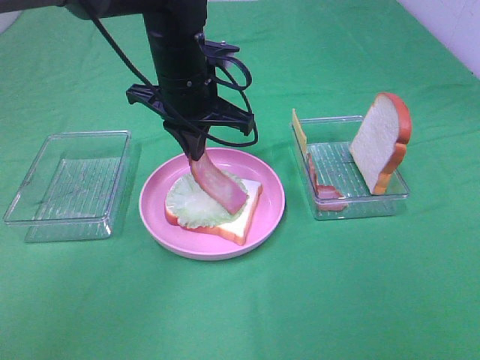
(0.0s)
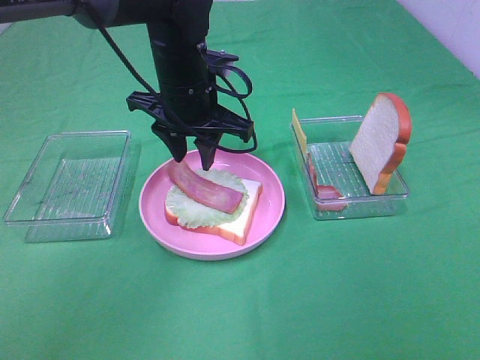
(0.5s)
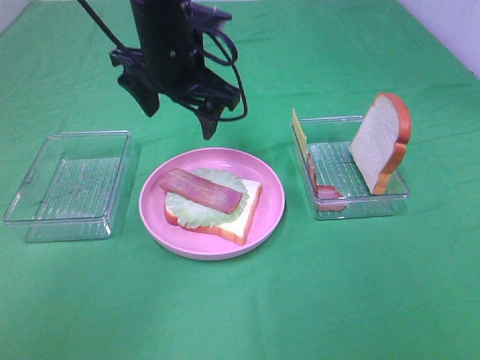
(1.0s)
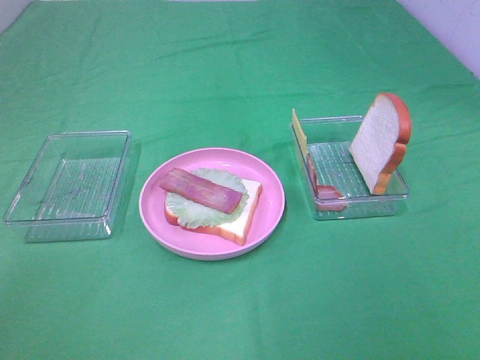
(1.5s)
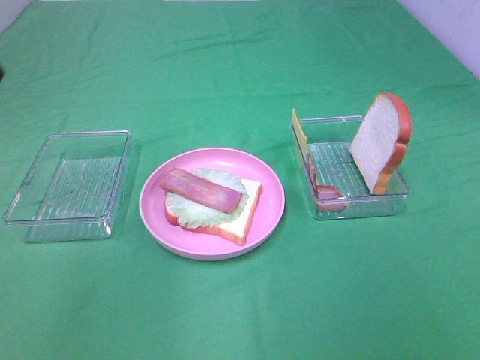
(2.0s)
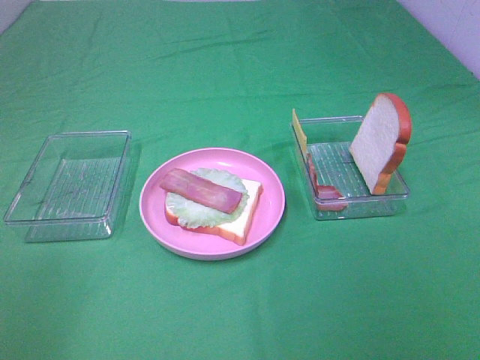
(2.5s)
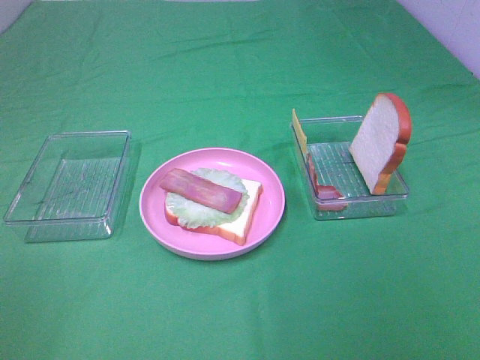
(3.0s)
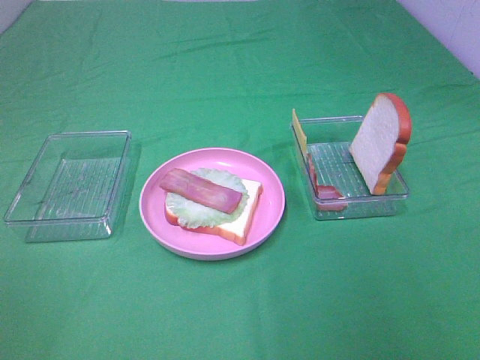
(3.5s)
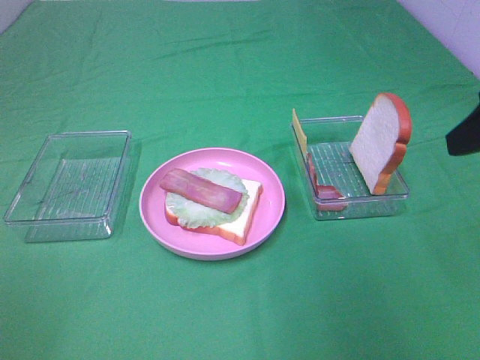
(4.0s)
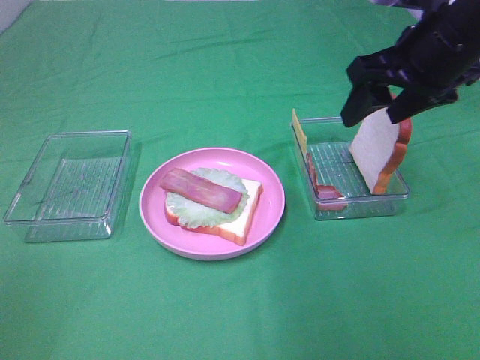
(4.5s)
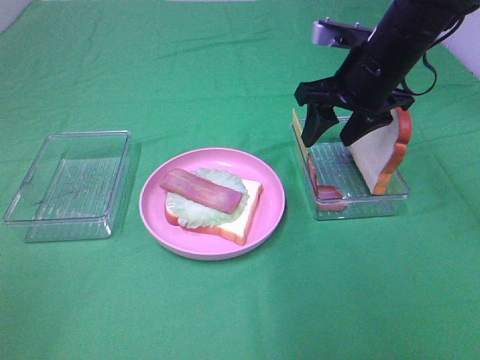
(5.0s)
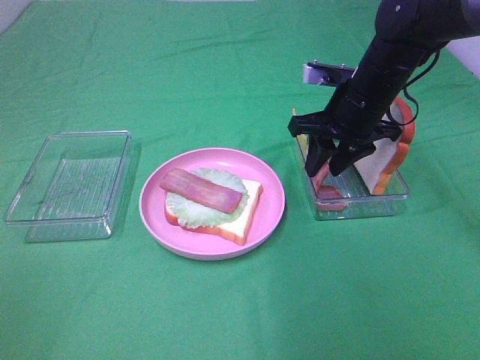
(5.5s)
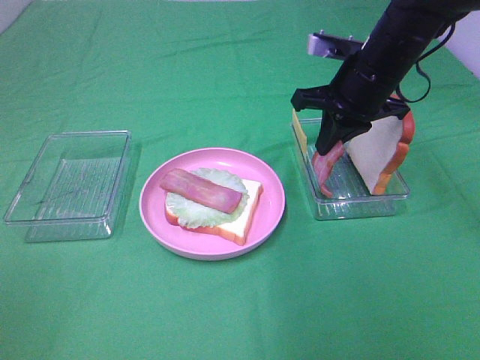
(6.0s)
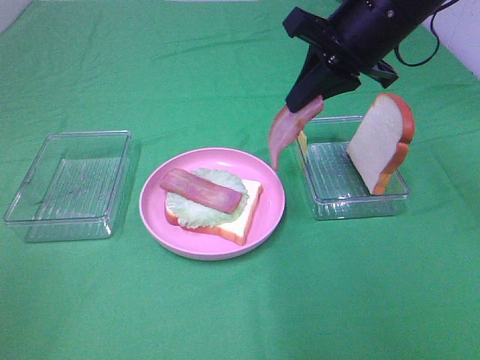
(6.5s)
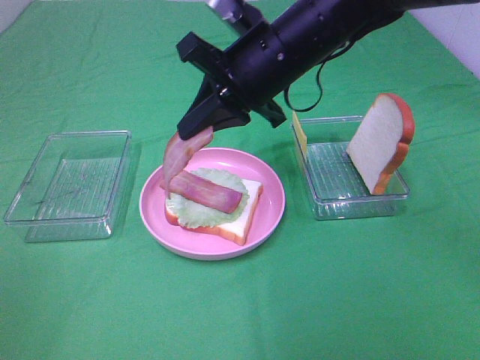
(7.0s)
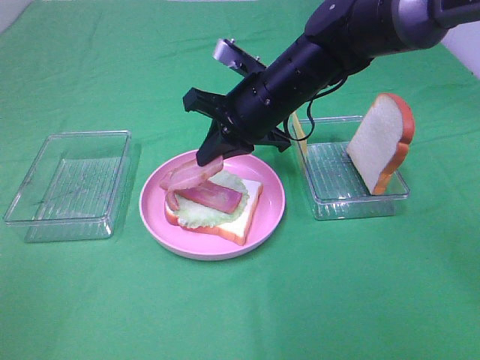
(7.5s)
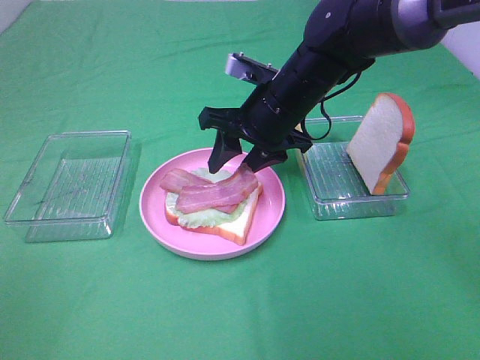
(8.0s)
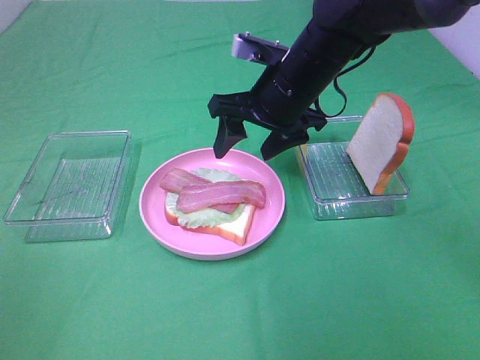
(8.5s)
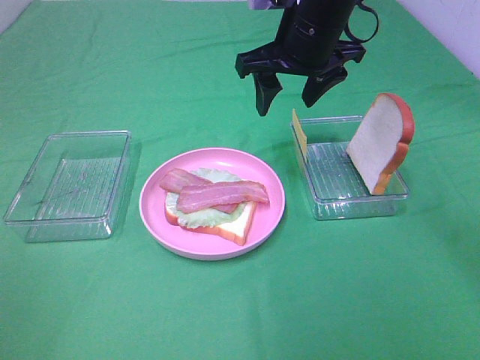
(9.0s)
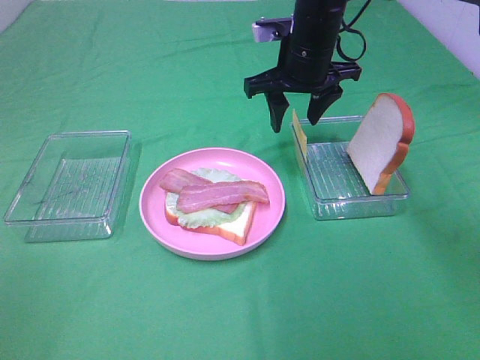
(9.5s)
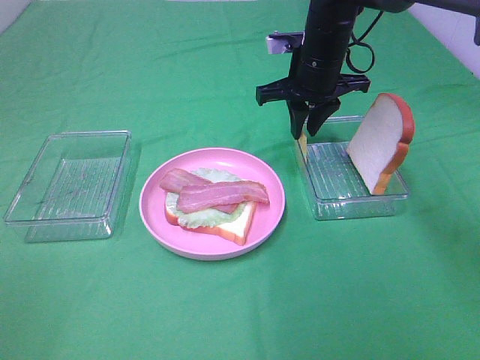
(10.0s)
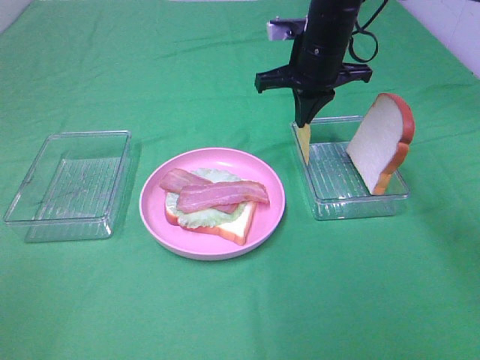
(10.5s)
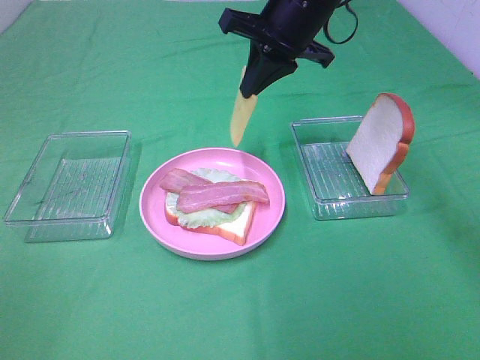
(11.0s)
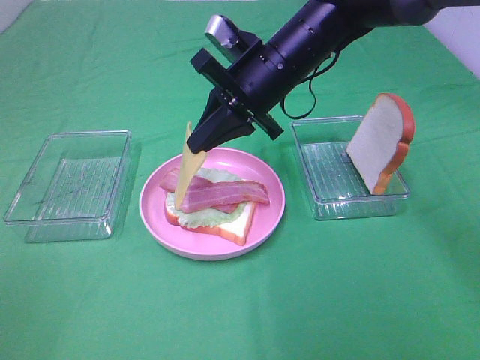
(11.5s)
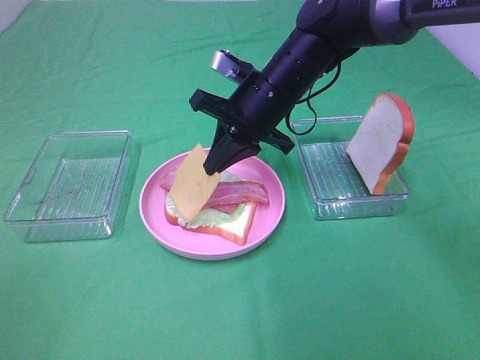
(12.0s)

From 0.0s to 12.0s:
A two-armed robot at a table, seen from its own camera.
Task of the whole recording: Make sandwiches.
Step, from 1.0s to 5.5s: Right hand:grab the bacon.
Step, from 6.0s to 8.5s: Right hand:place bacon on bacon.
Step, from 9.0s to 10.0s: Right hand:grab the cheese slice.
From 0.0s to 2.0s: The left gripper is displaced backward, upward and to the left by roughly 35 cm, and opens its fingers.
From 2.0s to 4.0s: The right gripper shifts some 20 cm forward.
From 4.0s to 6.0s: The right gripper shifts roughly 20 cm forward, to the left and downward, and closes up.
From 6.0s to 8.0s: The right gripper moves to the left, some 10 cm, and opens.
From 8.0s to 10.0s: The right gripper goes roughly 10 cm forward, moves about 10 cm upward and comes back, and closes its fingers.
From 10.0s to 12.0s: The right gripper is displaced backward and to the left by about 10 cm, and travels upward and back again, roughly 5 cm each way.

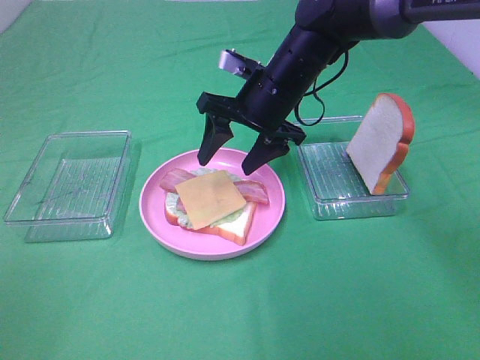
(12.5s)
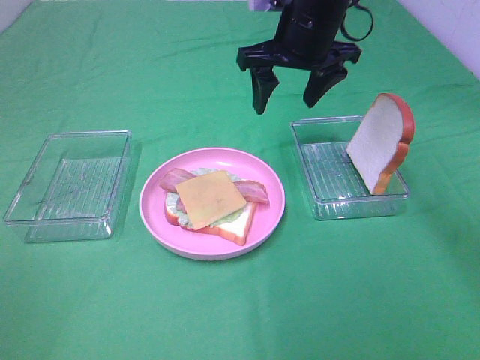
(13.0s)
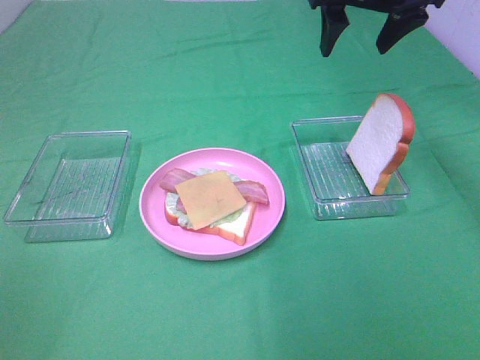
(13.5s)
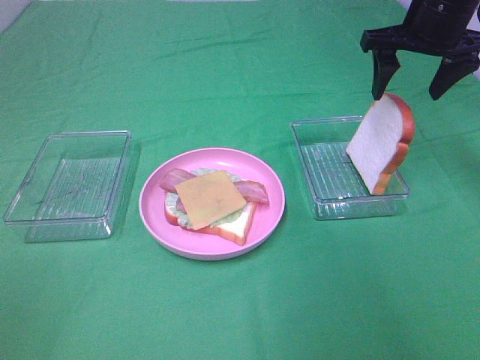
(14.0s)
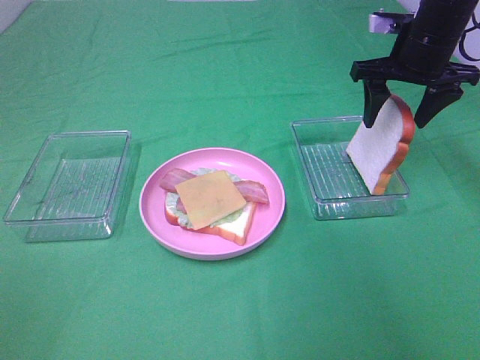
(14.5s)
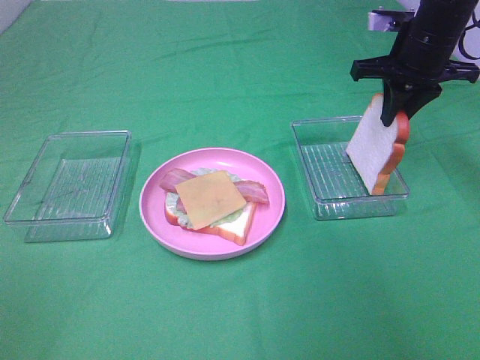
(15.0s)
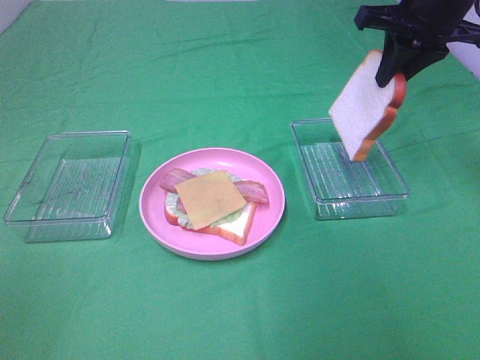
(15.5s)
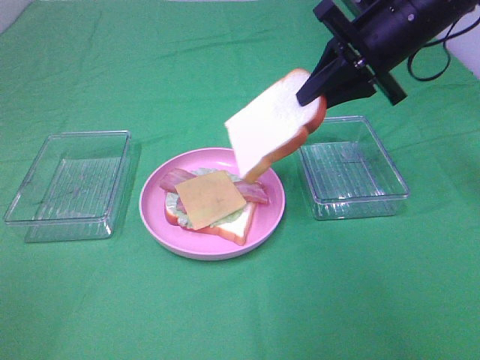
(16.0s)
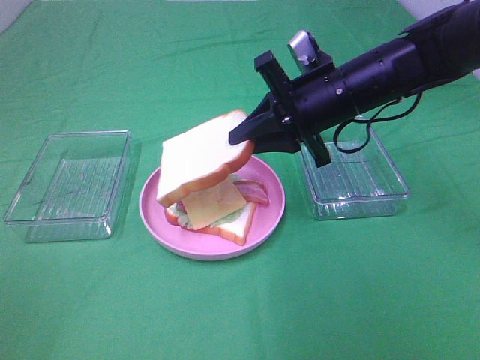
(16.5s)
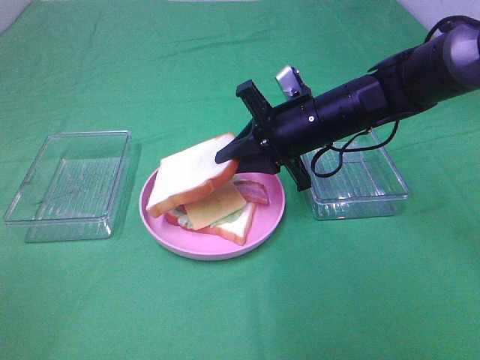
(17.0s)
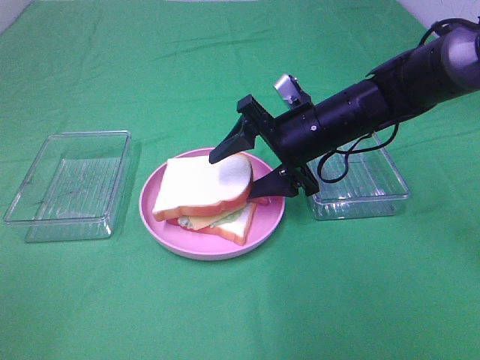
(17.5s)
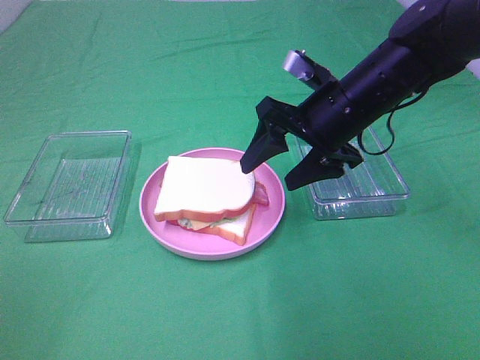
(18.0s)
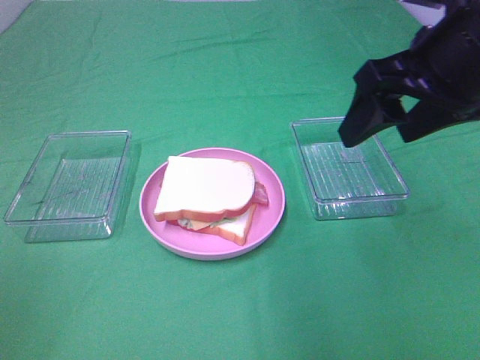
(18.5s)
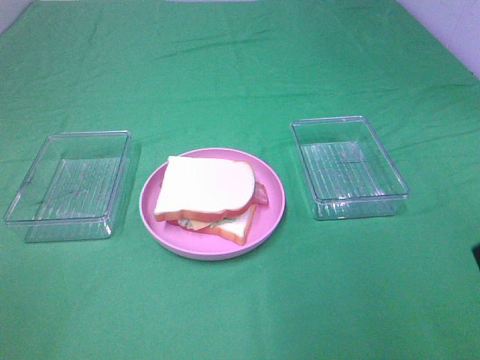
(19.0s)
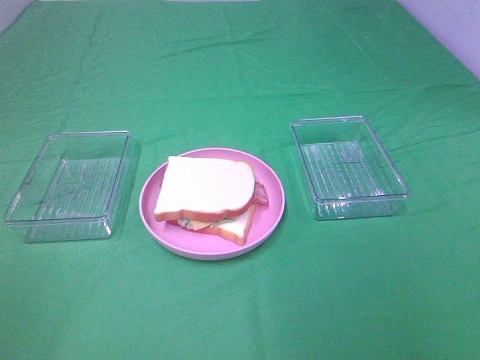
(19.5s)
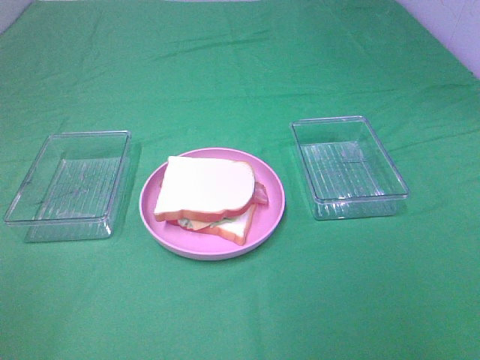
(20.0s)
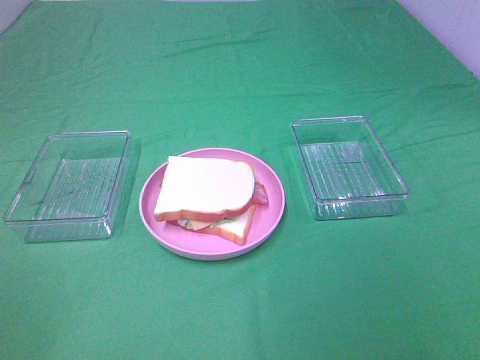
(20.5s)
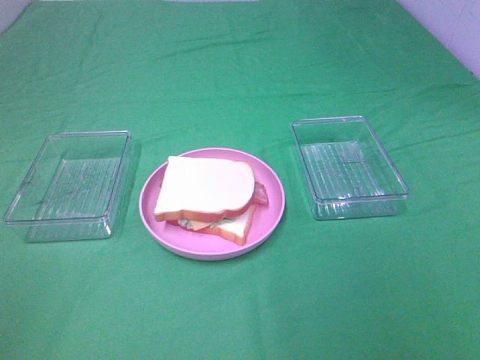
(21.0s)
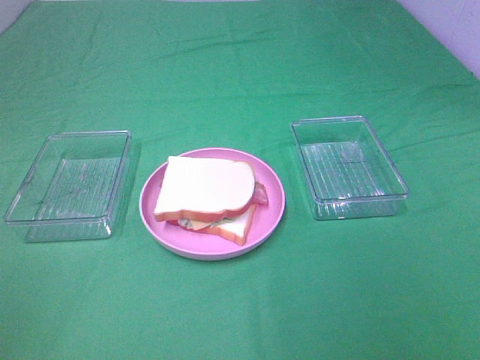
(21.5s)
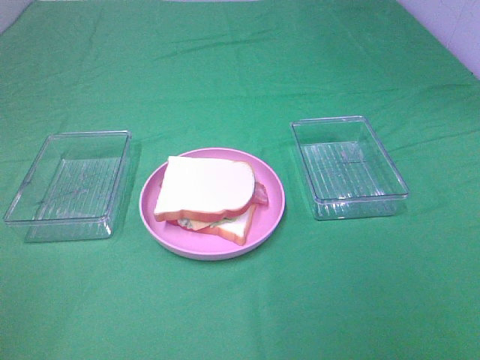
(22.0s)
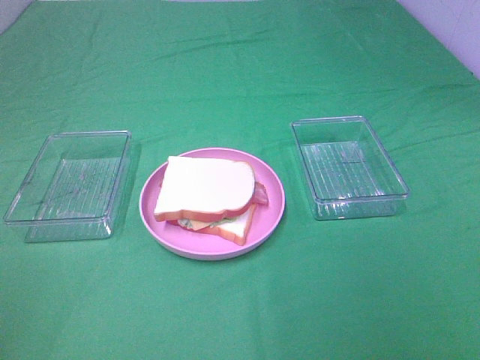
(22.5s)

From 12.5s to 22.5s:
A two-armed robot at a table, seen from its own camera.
Task of the whole recording: Make sandwiches.
Step, from 12.5s to 15.0s: Right hand:grab the bread slice.
Step, from 15.5s to 17.5s: Right hand:place the bread slice on the cheese slice.
From 12.5s to 14.5s: The right gripper heads to the right, covering some 20 cm.
From 14.5s to 16.5s: The right gripper shifts about 15 cm to the left and backward, and closes its fingers.
From 16.5s to 18.5s: The right gripper is displaced upward, backward and to the right by approximately 15 cm, and opens its fingers.
From 18.5s to 20.5s: The right gripper is displaced backward by roughly 25 cm.

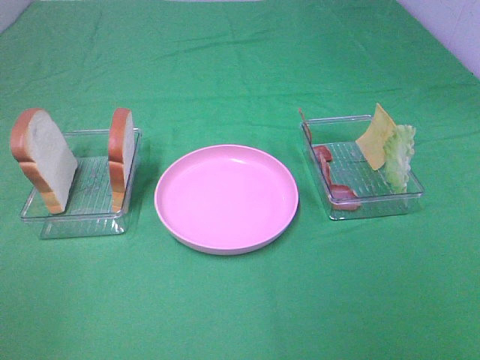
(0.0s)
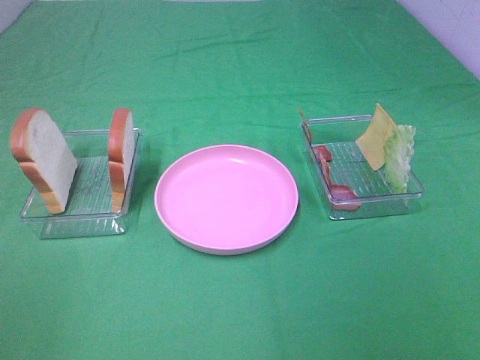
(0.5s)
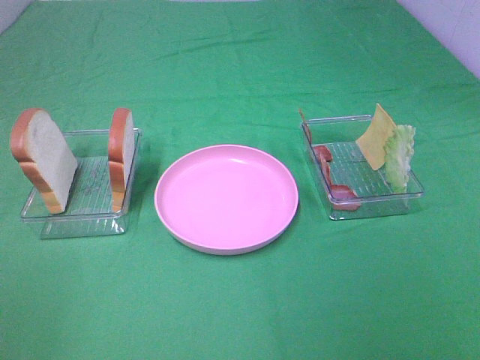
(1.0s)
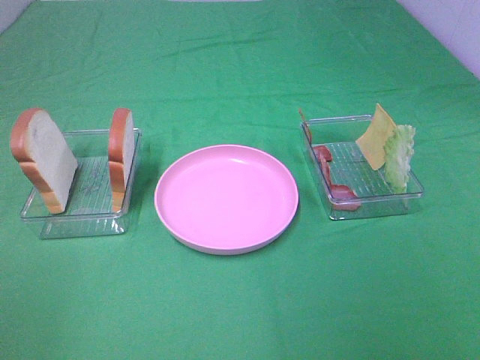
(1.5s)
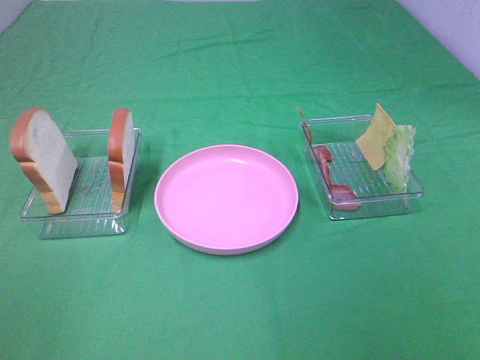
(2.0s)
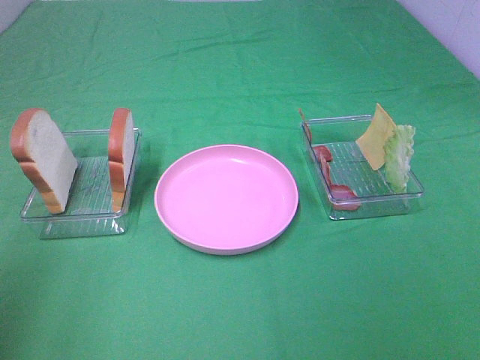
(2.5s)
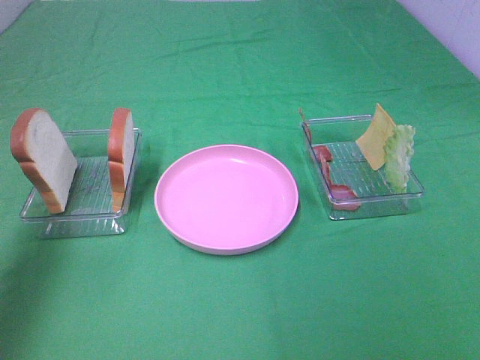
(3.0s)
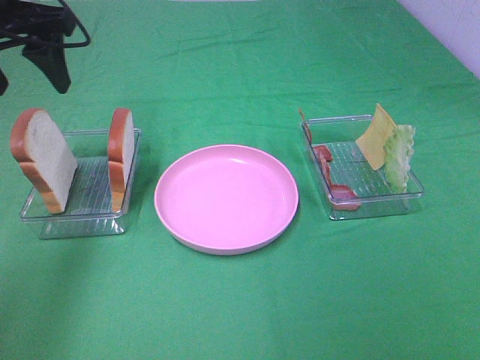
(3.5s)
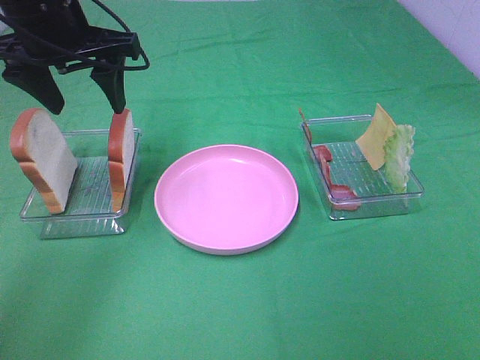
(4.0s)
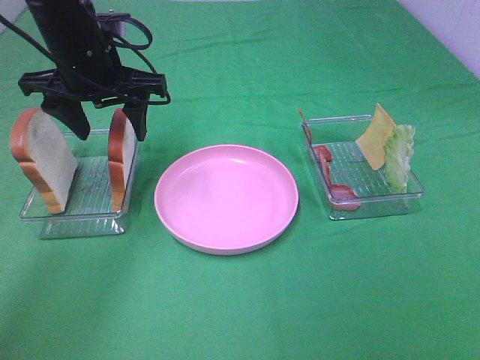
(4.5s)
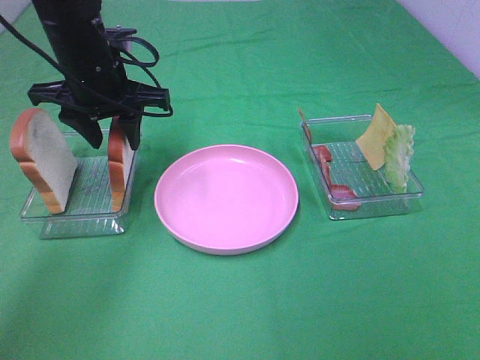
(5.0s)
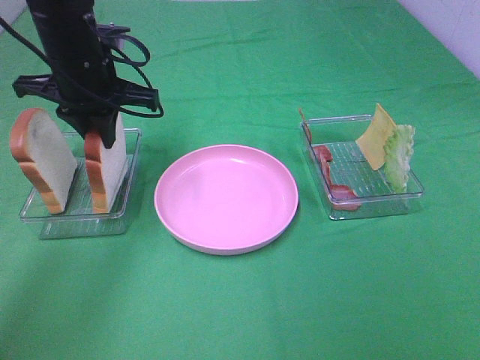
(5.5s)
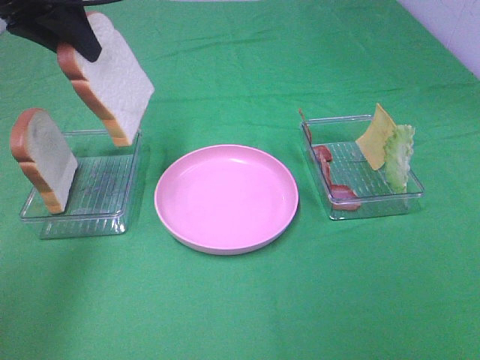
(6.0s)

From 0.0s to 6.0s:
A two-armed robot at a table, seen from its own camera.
Task of the whole recording: Make sandwiches.
Step, from 0.0s to 5.0s: Left hand:grab the bread slice.
From 0.0s to 2.0s: The two grippers keep their place.
From 2.0s to 4.0s: The left gripper goes some 35 cm forward.
From 4.0s to 6.0s: The left gripper heads upward, covering approximately 5 cm, and closes its fingers.
